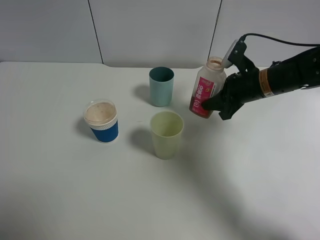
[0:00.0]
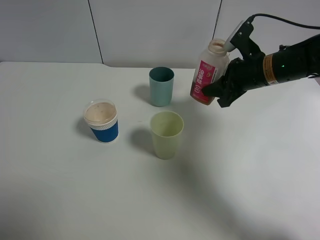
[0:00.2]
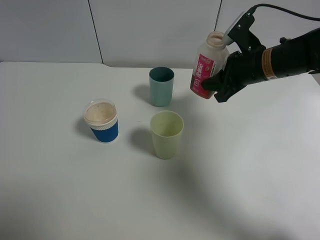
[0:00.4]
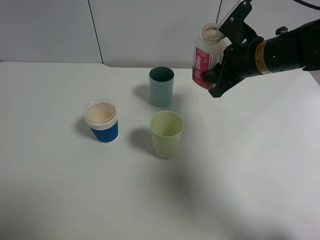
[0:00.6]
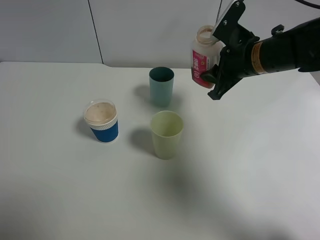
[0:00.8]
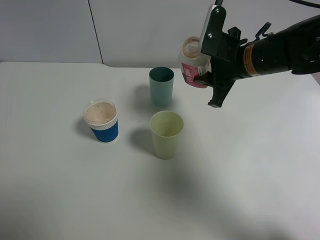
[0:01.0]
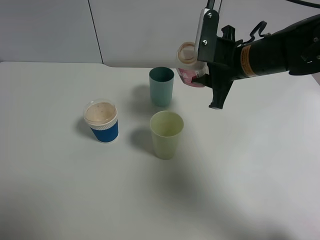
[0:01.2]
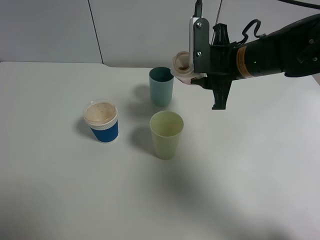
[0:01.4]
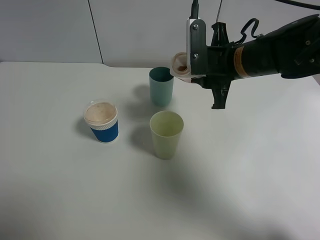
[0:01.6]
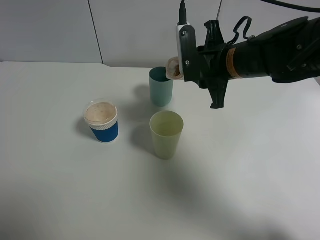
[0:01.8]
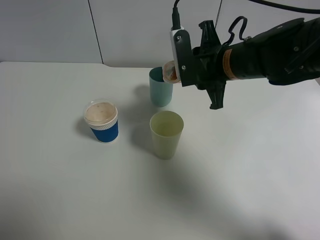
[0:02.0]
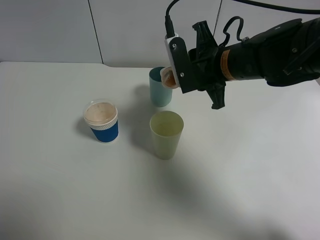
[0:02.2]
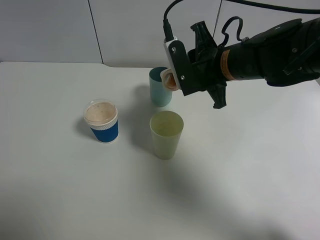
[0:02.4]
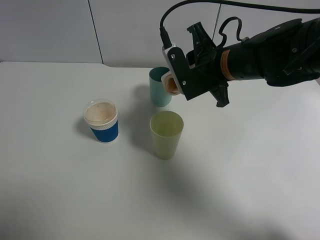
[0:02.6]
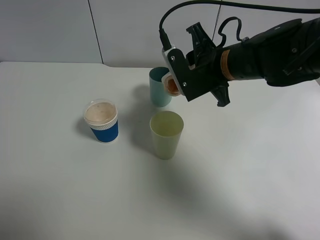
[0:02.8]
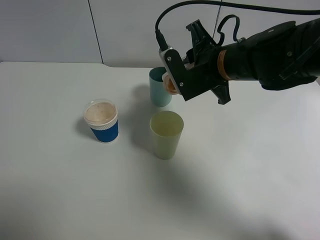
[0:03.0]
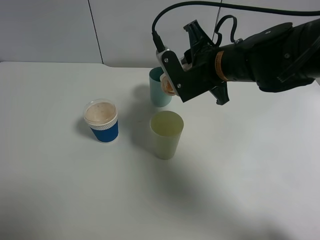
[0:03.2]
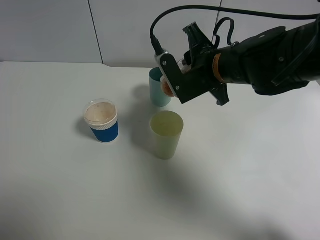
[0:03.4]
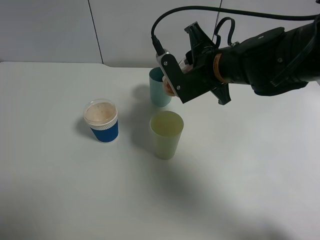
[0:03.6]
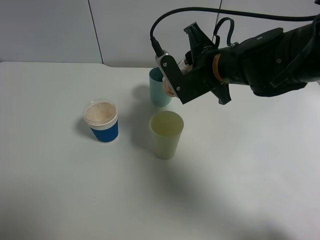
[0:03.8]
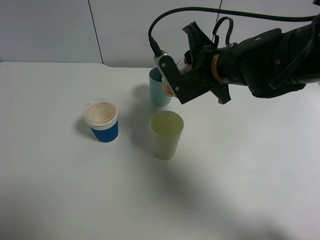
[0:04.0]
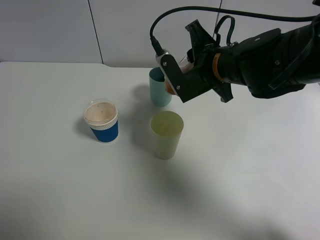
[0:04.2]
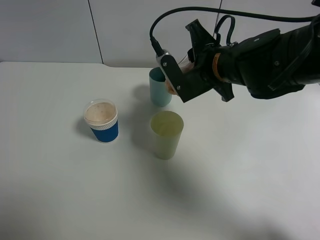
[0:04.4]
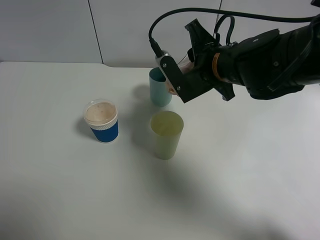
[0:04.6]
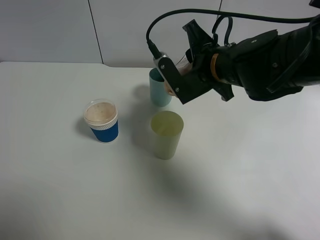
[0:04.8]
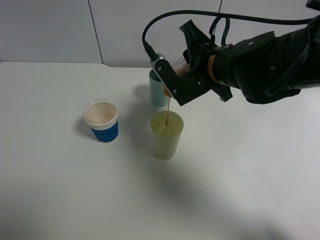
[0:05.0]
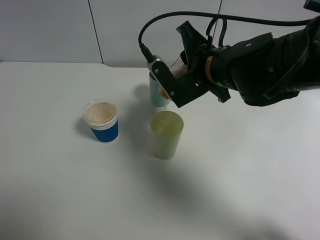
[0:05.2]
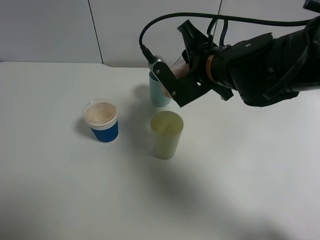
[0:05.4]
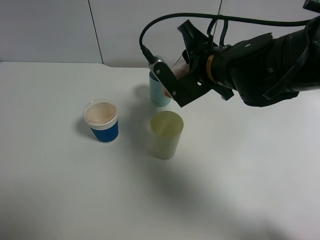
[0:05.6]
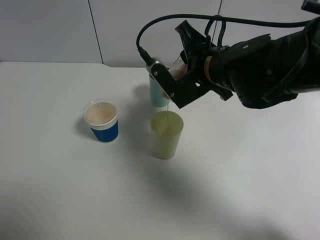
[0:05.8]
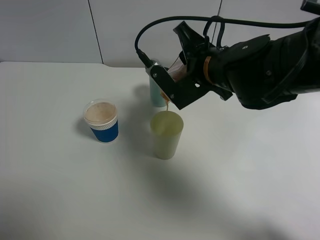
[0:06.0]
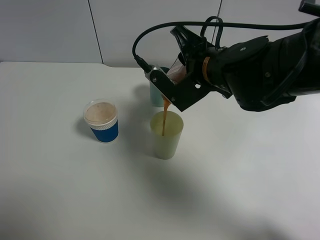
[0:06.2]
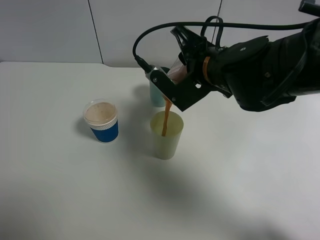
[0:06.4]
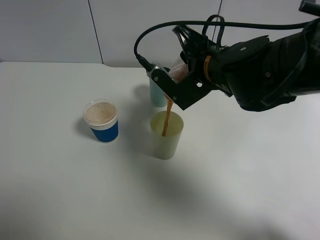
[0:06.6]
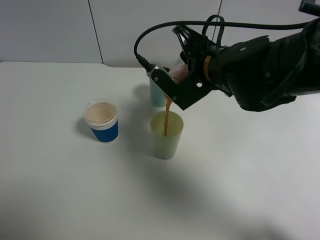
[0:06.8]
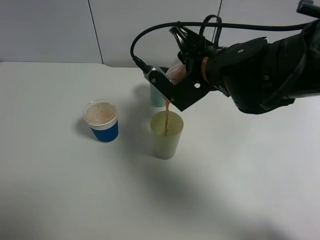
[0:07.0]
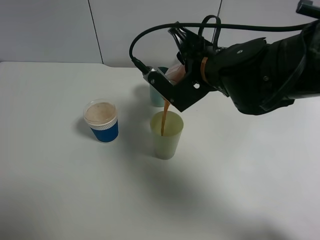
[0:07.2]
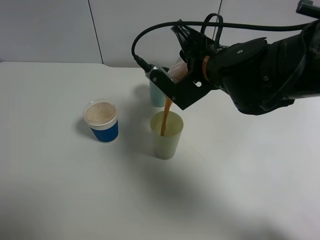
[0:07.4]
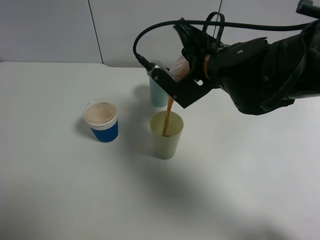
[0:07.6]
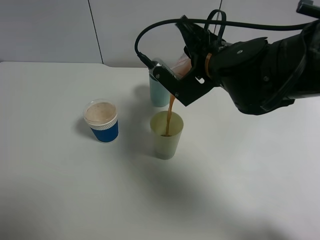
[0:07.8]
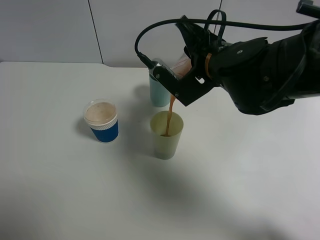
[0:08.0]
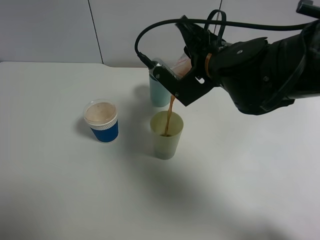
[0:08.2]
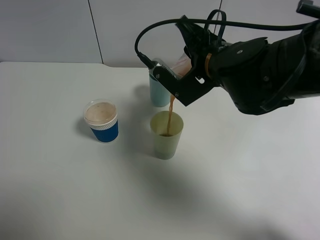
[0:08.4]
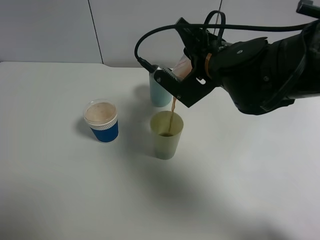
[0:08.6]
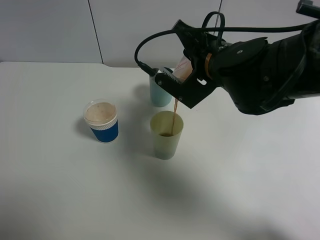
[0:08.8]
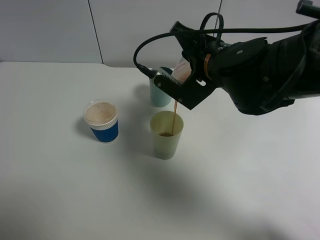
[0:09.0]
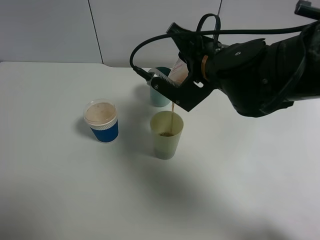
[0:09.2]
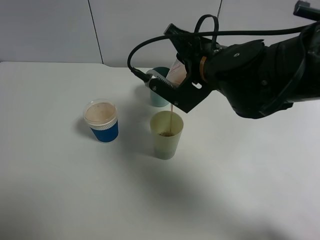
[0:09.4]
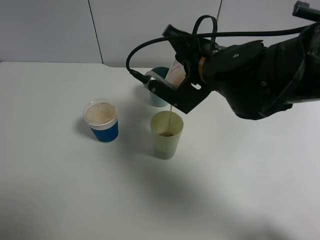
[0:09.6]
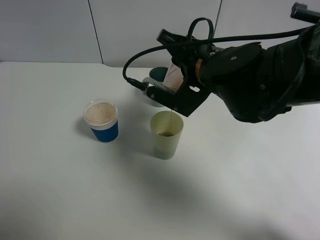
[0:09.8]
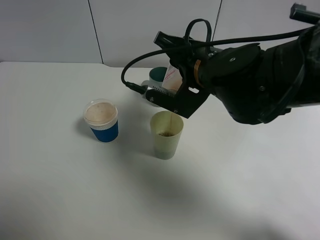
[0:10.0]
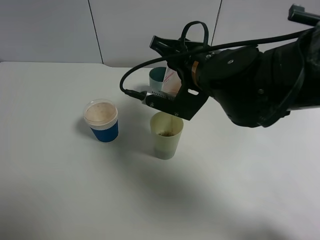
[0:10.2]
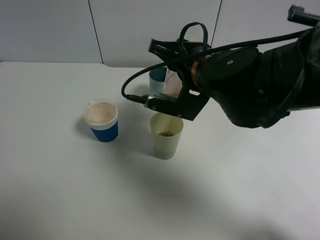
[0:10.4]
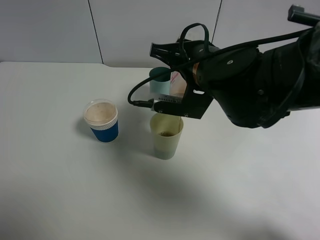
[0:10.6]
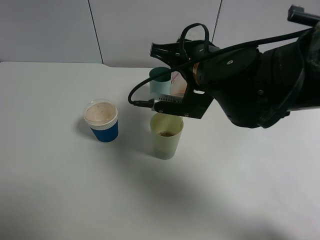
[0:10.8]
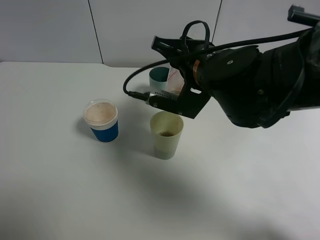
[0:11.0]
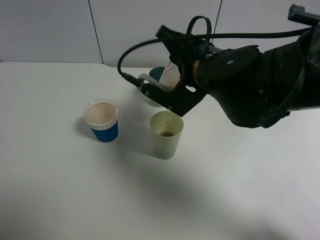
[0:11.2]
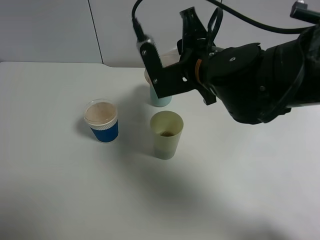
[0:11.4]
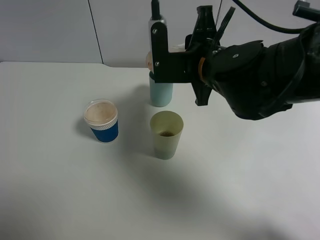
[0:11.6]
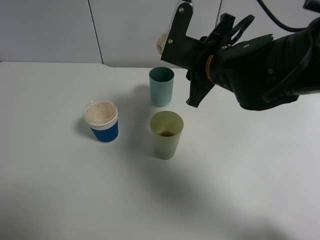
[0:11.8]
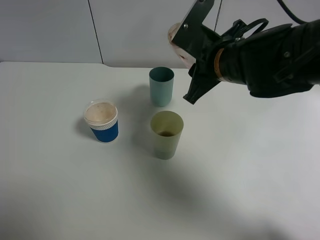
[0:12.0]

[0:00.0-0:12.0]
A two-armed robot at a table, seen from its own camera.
Task of the whole recording: use a gripper to hold the bottle of the drink and pour it into a random cup.
Step, 0:00.0 to 0:11.2: Pour the cranberry juice into the White Plastic Cup with the right gripper.
0:00.0 to 0:01.6: The right gripper is displaced to the left and upward by approximately 10 cm.
0:03.0 to 0:06.0: The grippers stay close to where they were, moving slightly.
0:06.0 to 0:09.0: The grippers move only a little.
0:09.0 to 0:10.4: There are only small adjustments of the grippers.

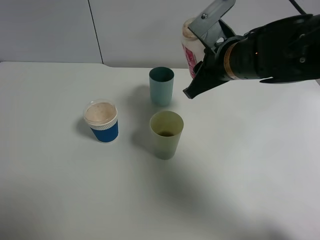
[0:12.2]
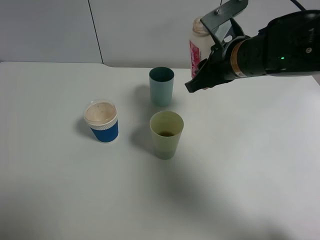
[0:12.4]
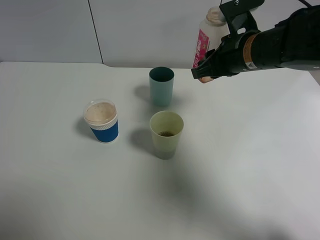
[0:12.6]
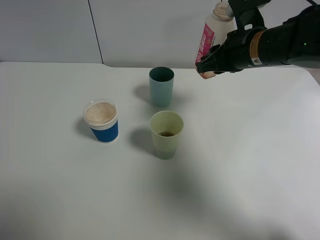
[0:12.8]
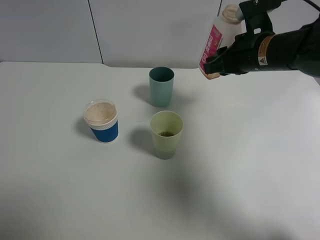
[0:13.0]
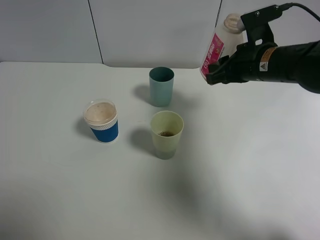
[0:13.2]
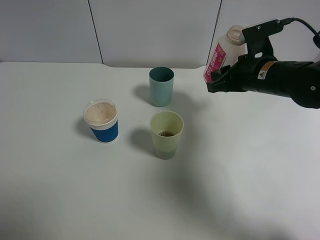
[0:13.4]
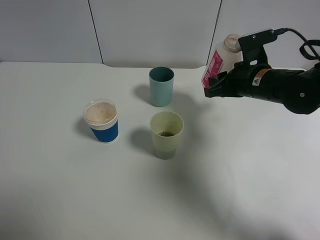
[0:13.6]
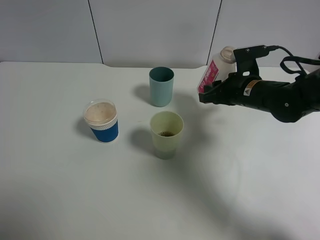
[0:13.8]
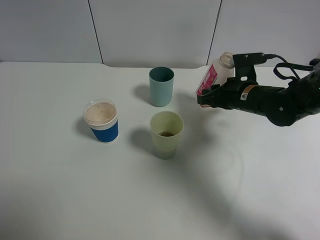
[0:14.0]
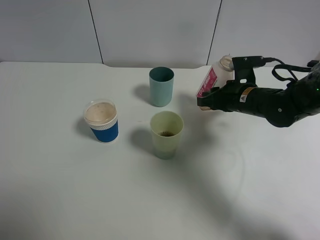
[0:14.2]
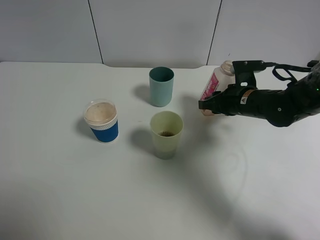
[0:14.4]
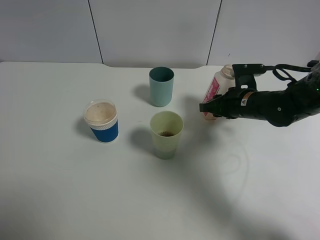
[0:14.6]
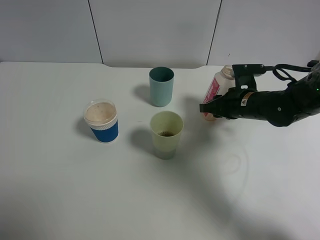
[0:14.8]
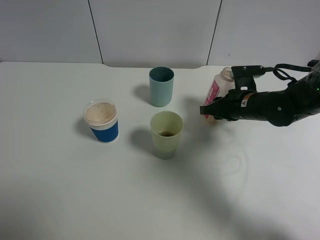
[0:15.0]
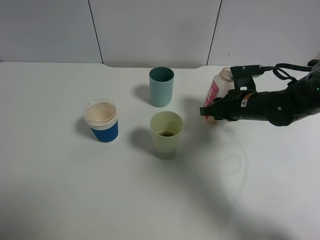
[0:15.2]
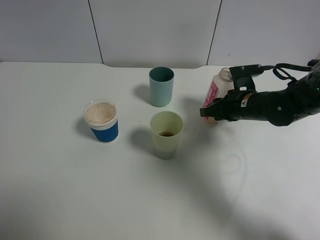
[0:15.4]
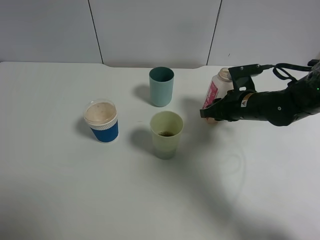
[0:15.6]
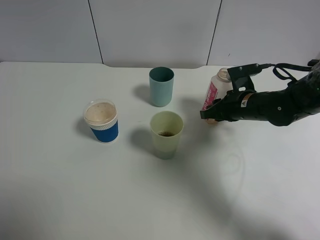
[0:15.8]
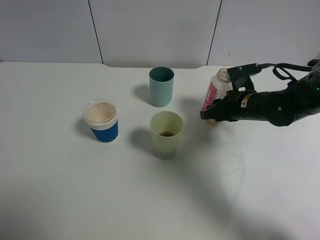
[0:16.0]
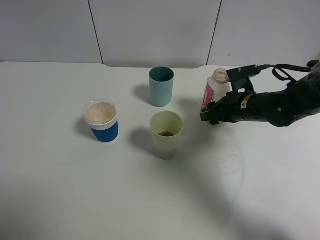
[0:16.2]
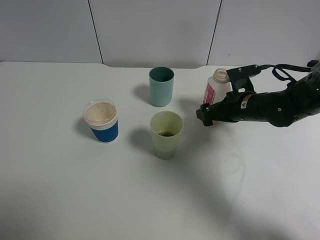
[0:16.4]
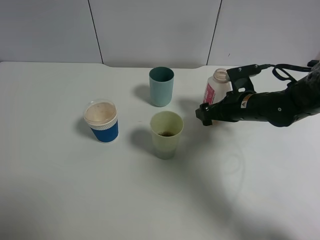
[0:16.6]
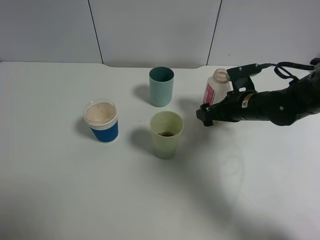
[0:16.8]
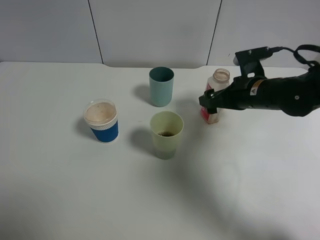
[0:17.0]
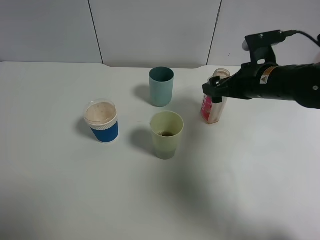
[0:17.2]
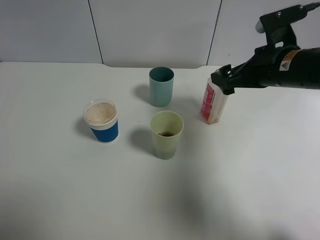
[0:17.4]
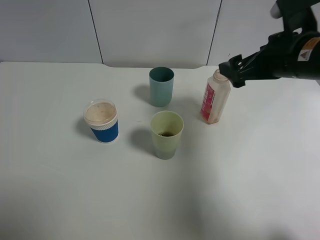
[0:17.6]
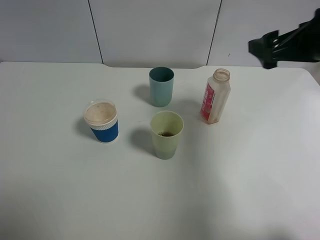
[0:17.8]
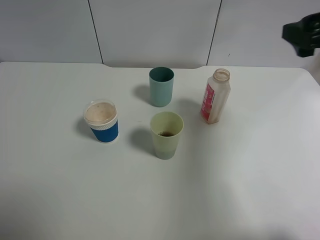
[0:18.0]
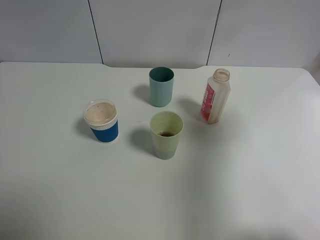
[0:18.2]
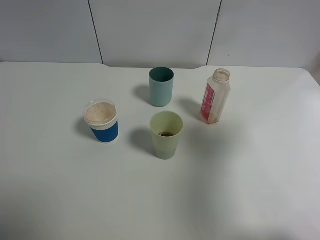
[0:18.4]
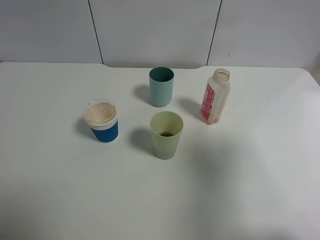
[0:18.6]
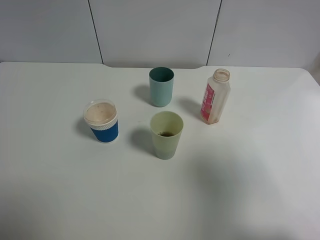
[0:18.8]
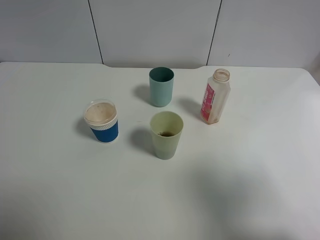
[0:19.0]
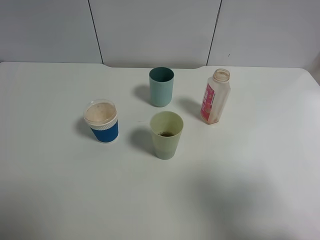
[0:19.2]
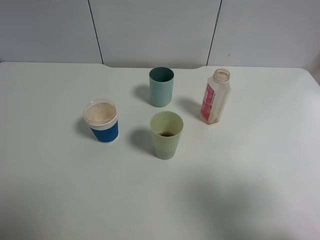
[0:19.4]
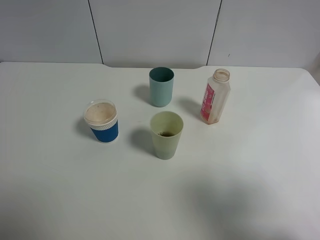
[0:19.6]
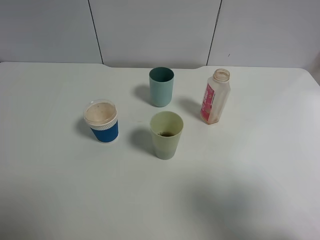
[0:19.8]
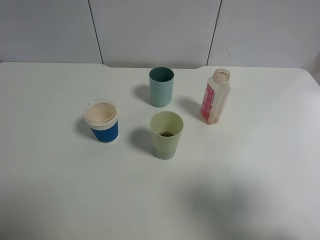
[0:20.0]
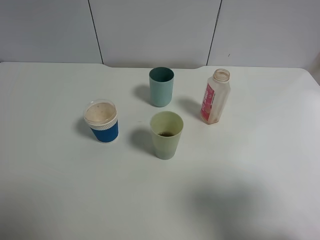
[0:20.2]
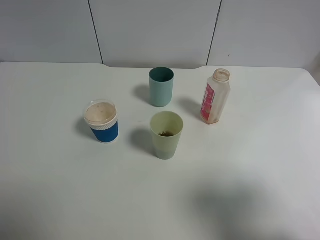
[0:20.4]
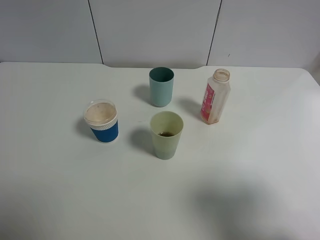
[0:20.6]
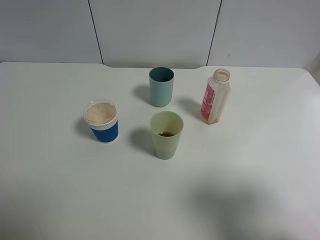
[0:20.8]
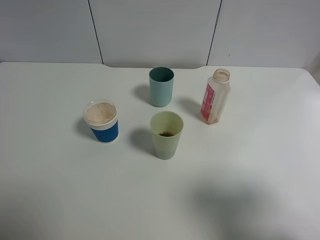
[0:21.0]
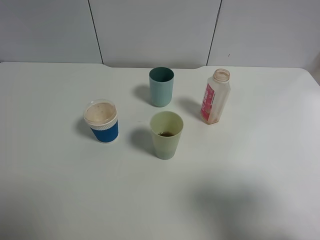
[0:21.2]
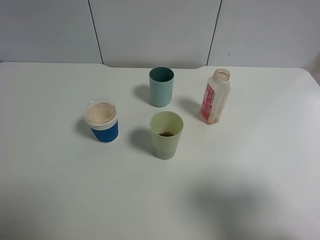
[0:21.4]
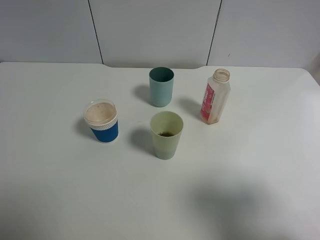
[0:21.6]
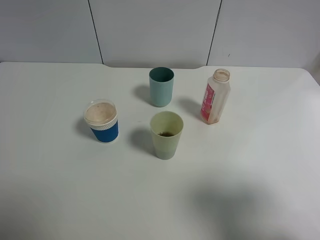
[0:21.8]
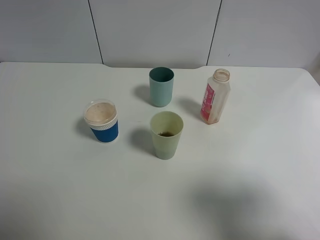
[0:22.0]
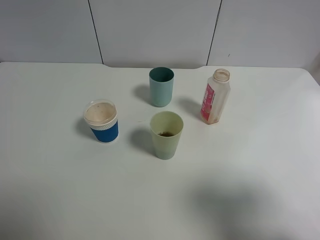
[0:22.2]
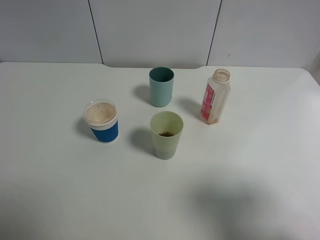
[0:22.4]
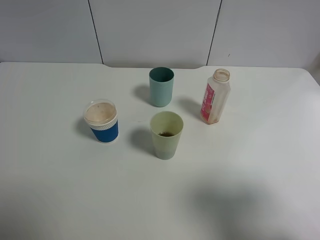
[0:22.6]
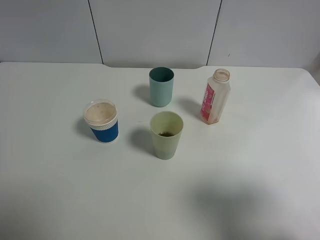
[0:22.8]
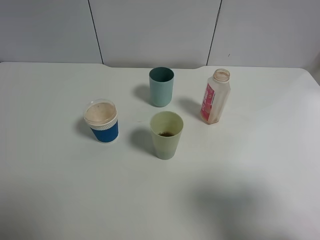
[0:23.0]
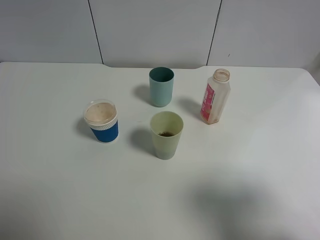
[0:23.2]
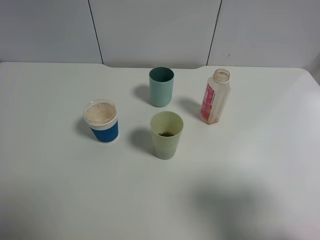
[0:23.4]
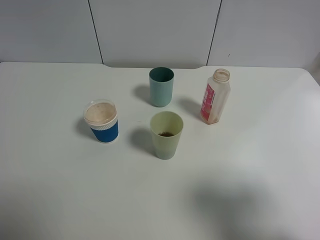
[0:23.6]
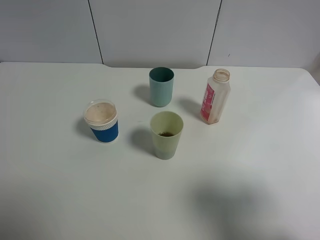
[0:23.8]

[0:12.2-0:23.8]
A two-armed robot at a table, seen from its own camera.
Task of the whole recording: use a gripper to hold the bottle of the drink and pour it into a random cup.
Step, 0:12.2 to 0:16.8: Place the cranberry juice bottle on the table with the right gripper.
0:12.2 to 0:13.6: The right gripper goes some 10 cm to the right and downward.
0:13.6 to 0:15.0: The right gripper goes about 5 cm downward.
0:15.0 to 0:16.6: The right gripper opens its fingers.
0:16.6 to 0:18.0: The right gripper is displaced upward and backward by roughly 25 cm.
0:18.0 to 0:19.4: The right gripper heads backward, covering roughly 20 cm.
0:21.0 to 0:23.8: Neither gripper changes place.
